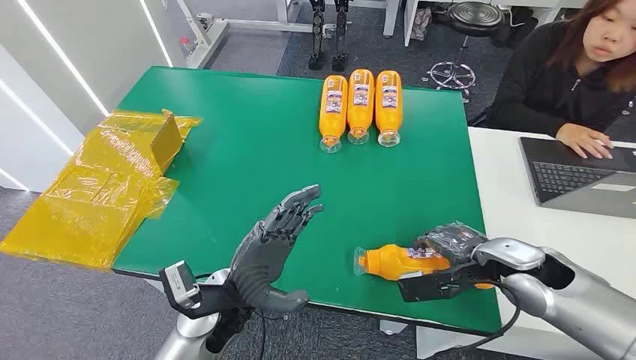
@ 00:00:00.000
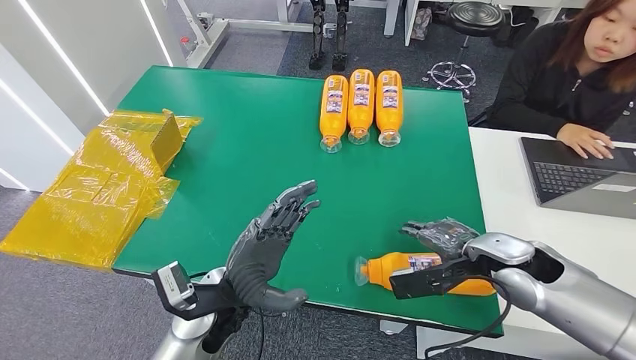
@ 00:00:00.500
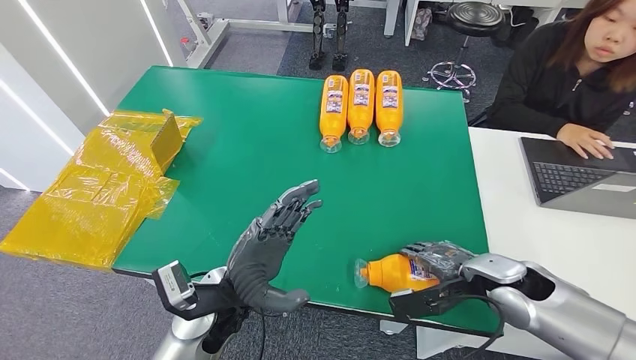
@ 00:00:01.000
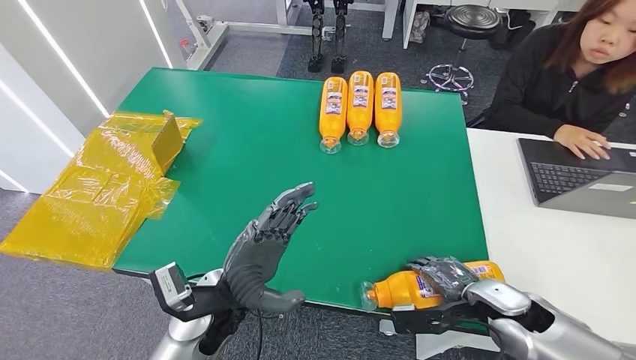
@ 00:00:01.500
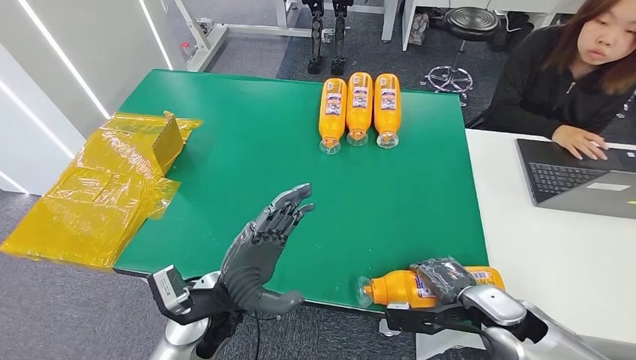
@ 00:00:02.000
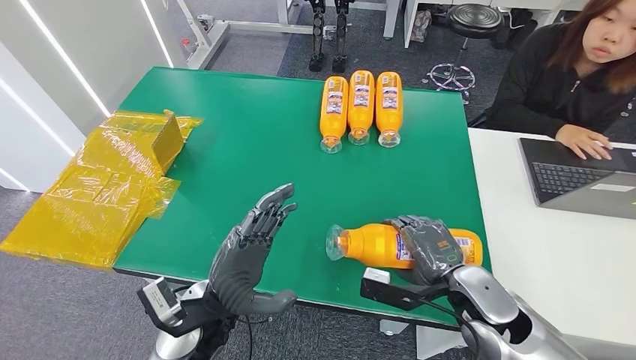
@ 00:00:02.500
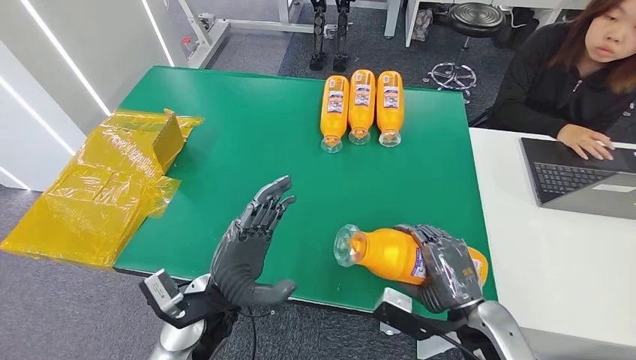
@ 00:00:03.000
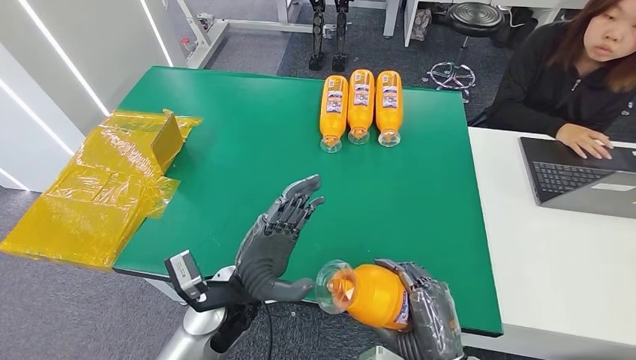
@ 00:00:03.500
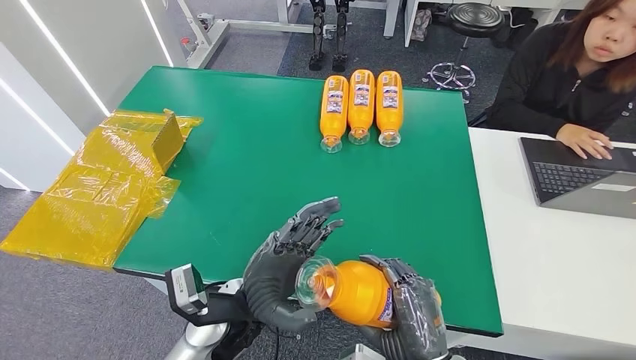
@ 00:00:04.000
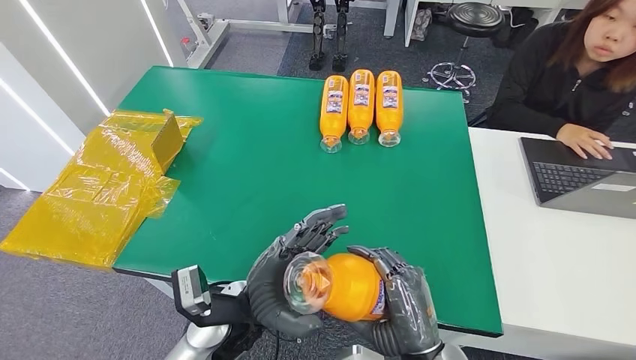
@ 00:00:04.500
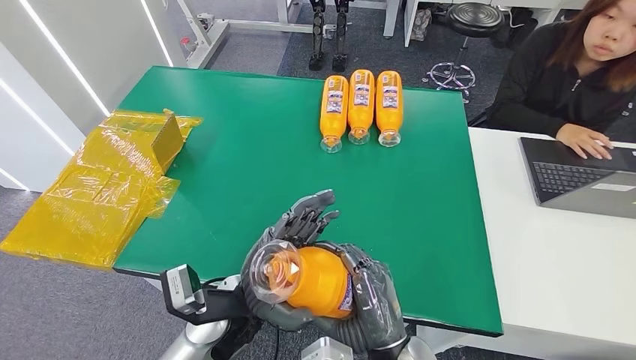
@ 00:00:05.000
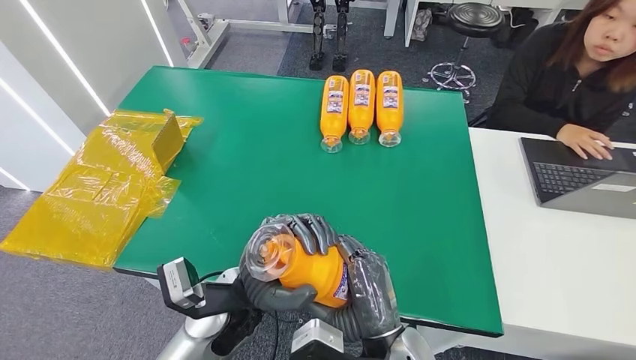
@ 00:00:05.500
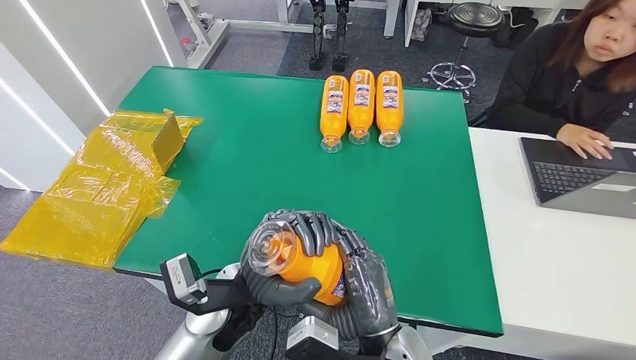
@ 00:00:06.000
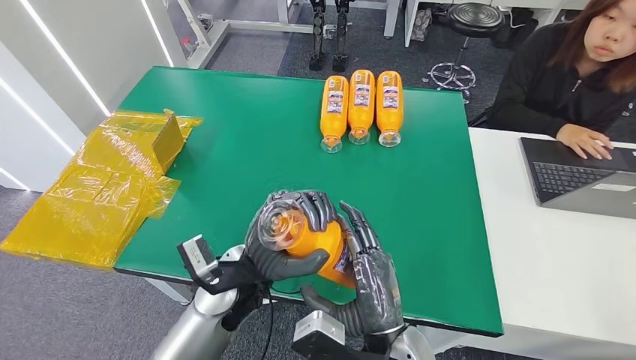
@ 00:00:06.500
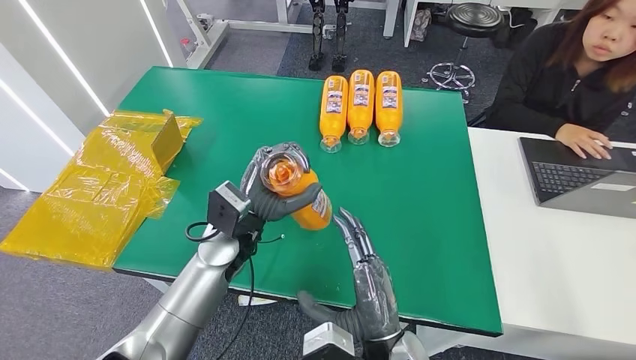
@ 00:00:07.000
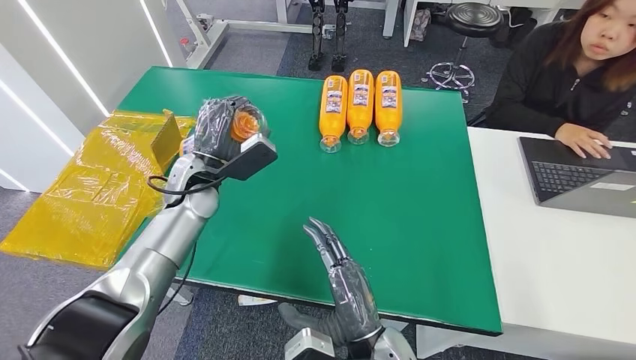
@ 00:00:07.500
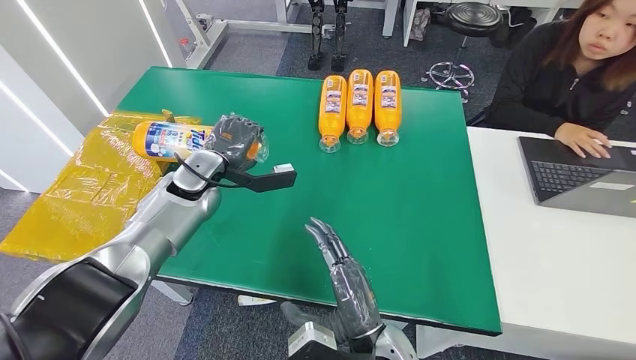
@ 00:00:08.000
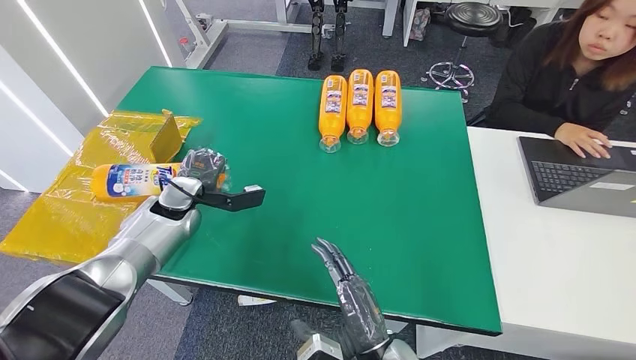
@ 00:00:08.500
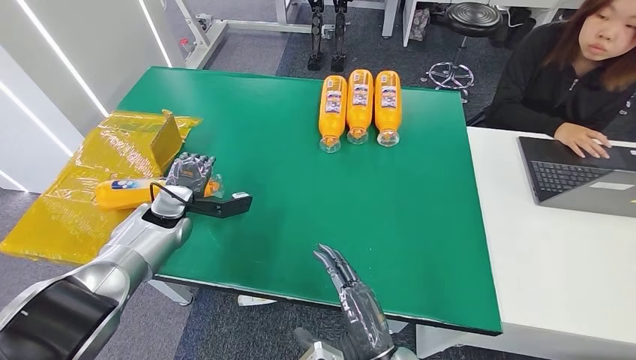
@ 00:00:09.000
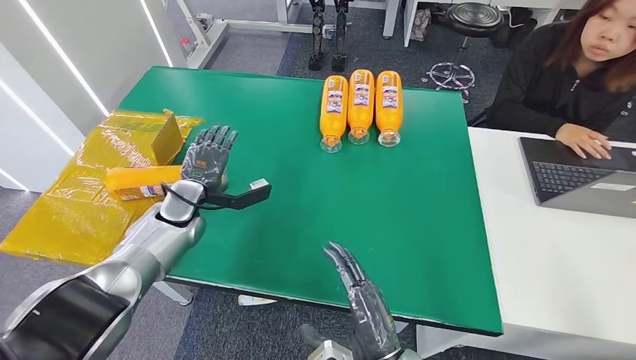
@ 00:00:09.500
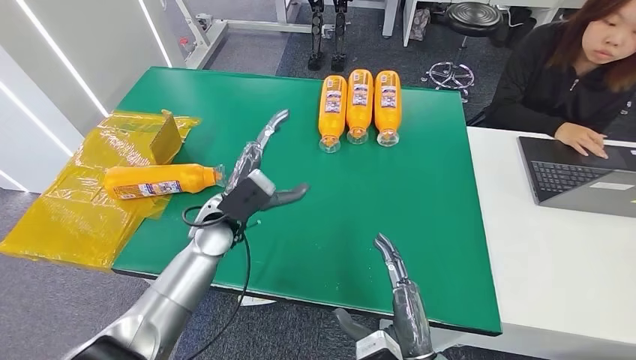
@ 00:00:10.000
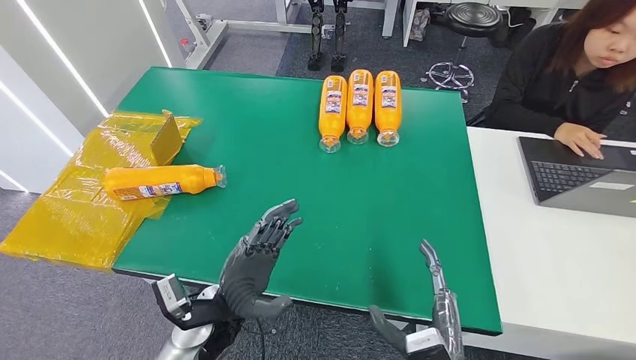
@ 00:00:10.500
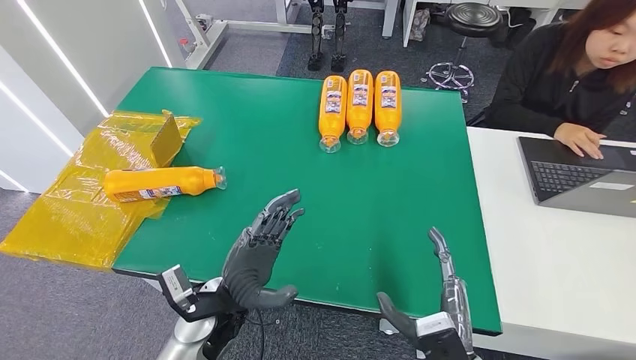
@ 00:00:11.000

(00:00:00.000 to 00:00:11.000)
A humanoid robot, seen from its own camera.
Step, 00:00:00.000 - 00:00:03.500: Pick up the bottle from the table.
Step, 00:00:04.000 - 00:00:11.000: Turn the bottle to the front side.
00:00:02.000 - 00:00:03.500: The right hand travels backward and to the left by approximately 15 cm.
00:00:03.500 - 00:00:05.500: The right hand is displaced to the left by approximately 10 cm.
00:00:05.500 - 00:00:07.500: The left hand goes roughly 20 cm forward and to the left.
00:00:07.500 - 00:00:09.000: The left hand shifts about 15 cm to the left and downward.
00:00:09.000 - 00:00:11.000: The right hand goes some 10 cm to the right, while the left hand travels to the right and backward by about 25 cm.

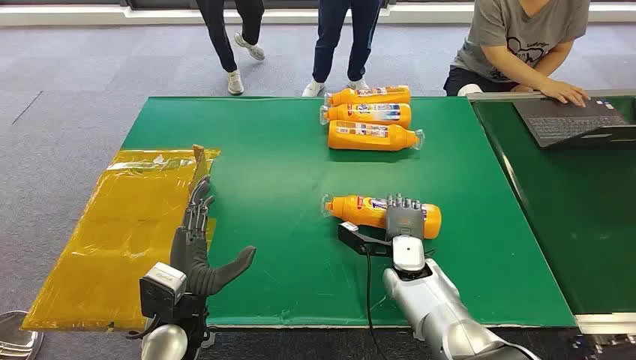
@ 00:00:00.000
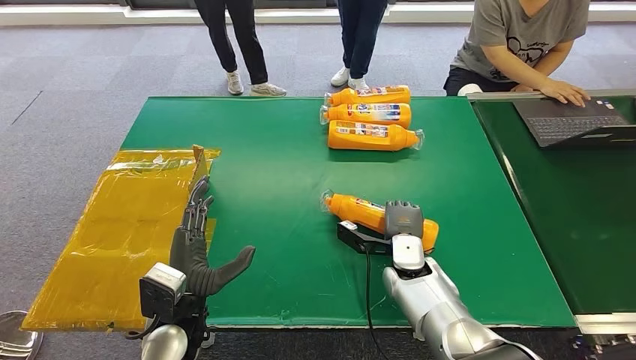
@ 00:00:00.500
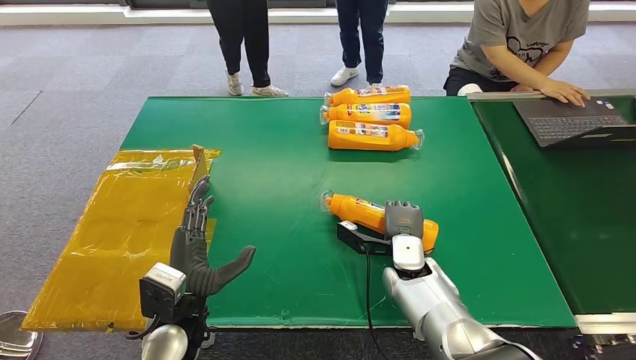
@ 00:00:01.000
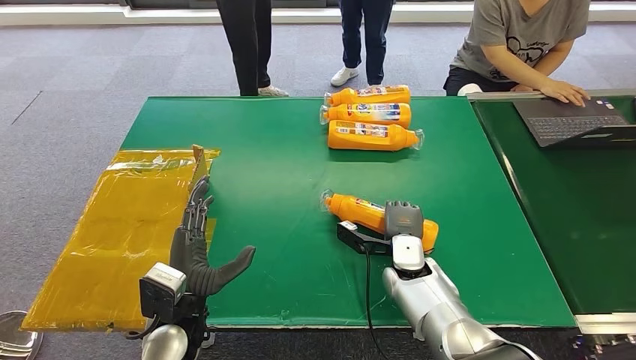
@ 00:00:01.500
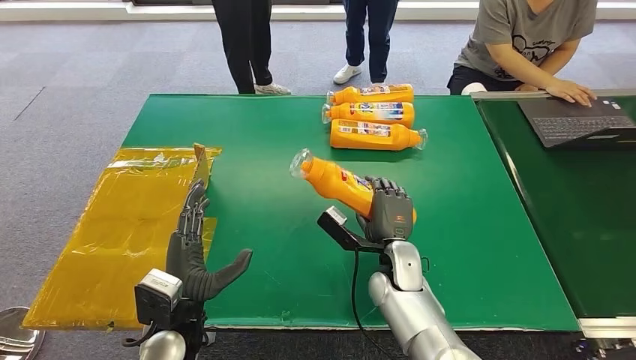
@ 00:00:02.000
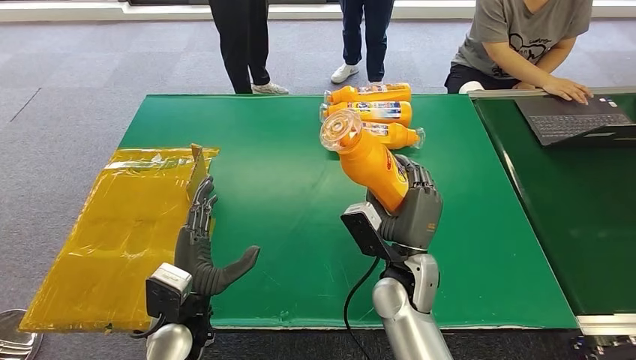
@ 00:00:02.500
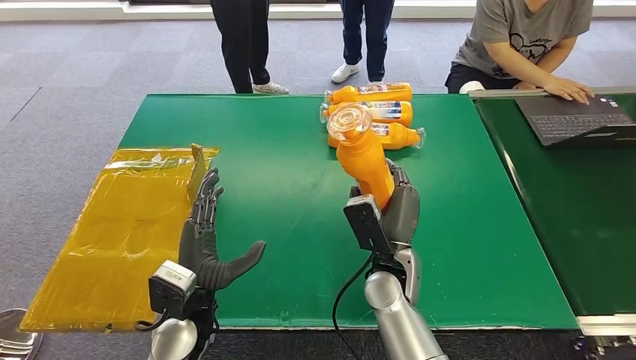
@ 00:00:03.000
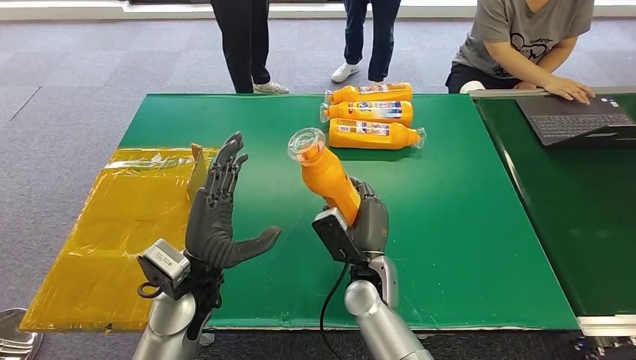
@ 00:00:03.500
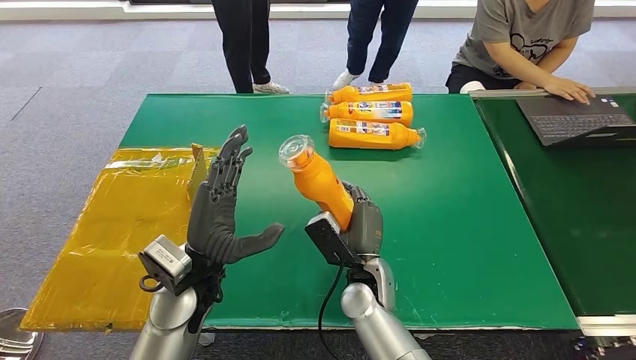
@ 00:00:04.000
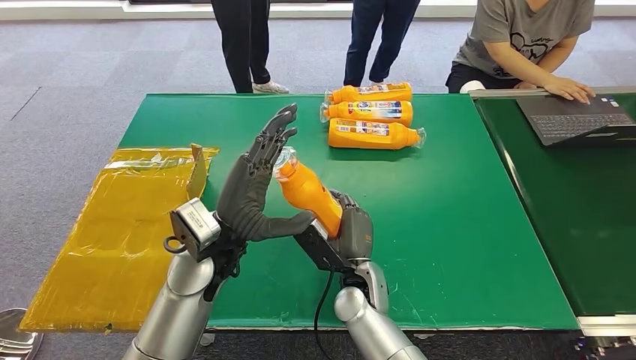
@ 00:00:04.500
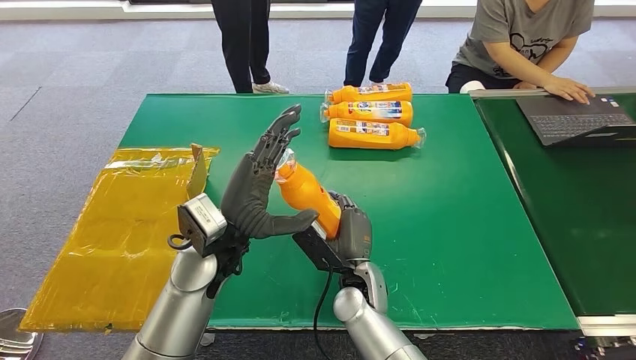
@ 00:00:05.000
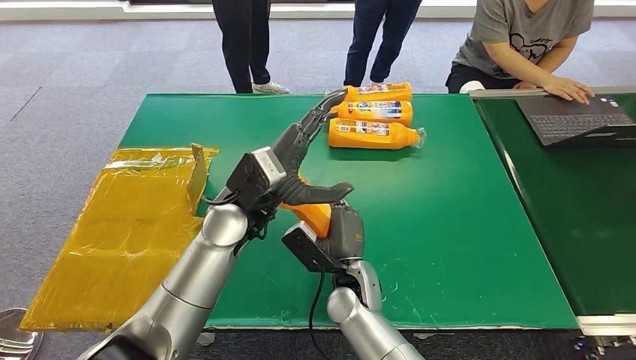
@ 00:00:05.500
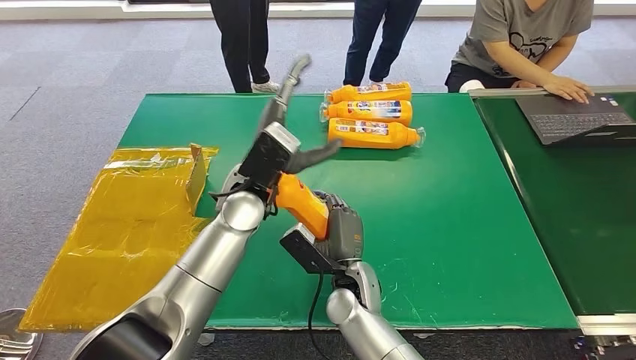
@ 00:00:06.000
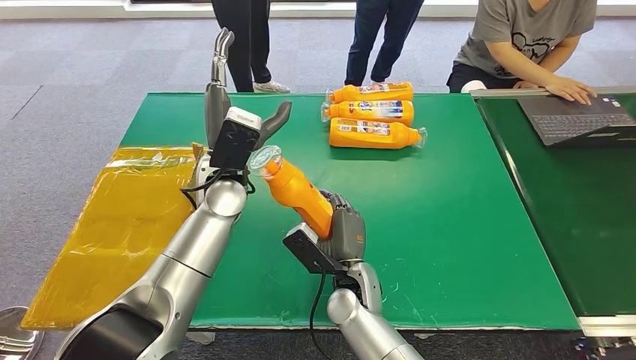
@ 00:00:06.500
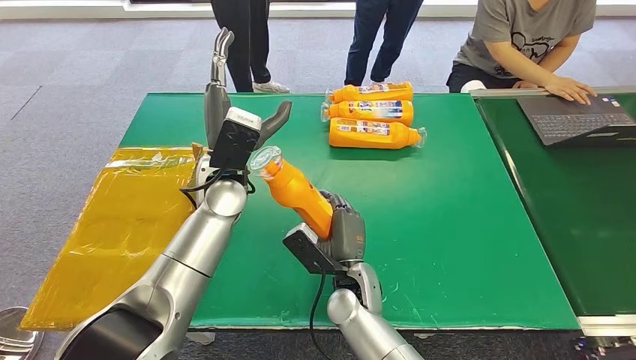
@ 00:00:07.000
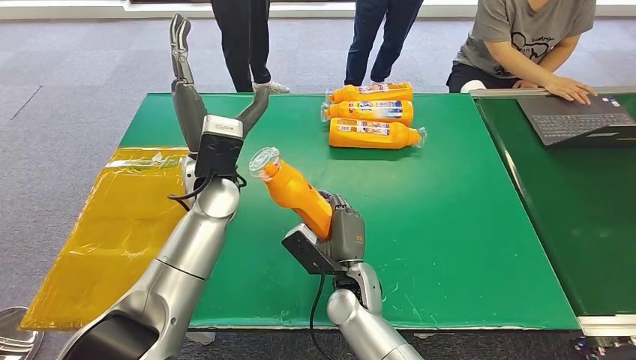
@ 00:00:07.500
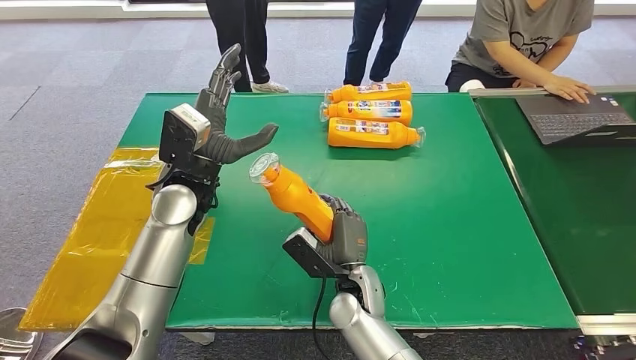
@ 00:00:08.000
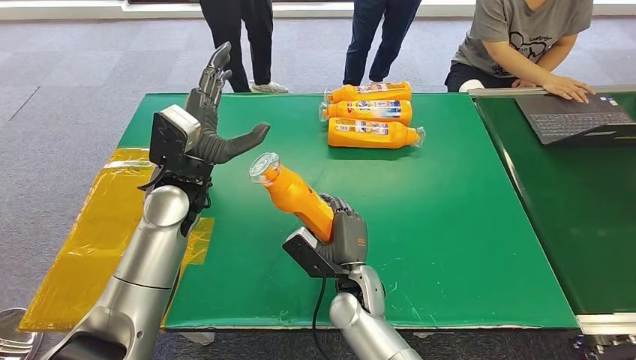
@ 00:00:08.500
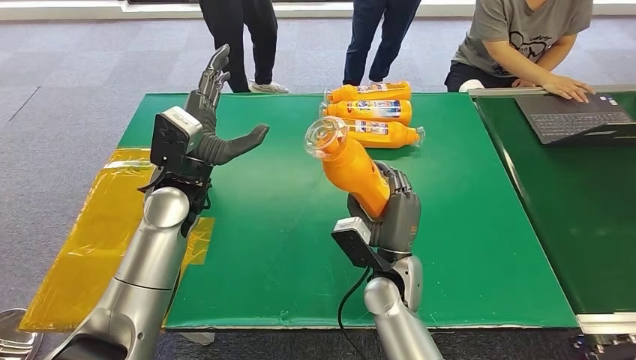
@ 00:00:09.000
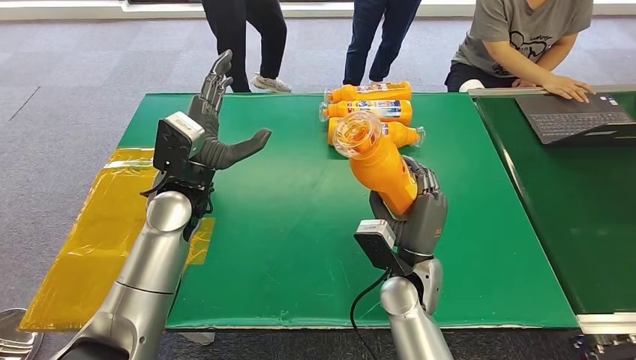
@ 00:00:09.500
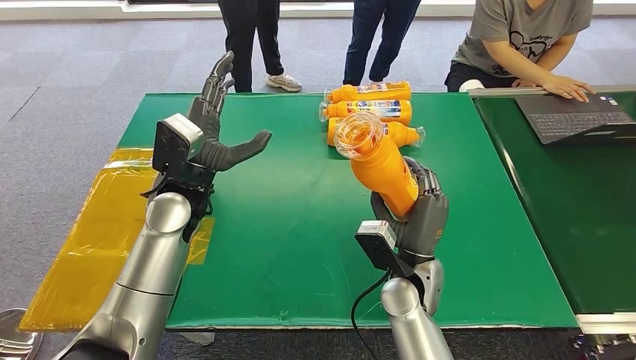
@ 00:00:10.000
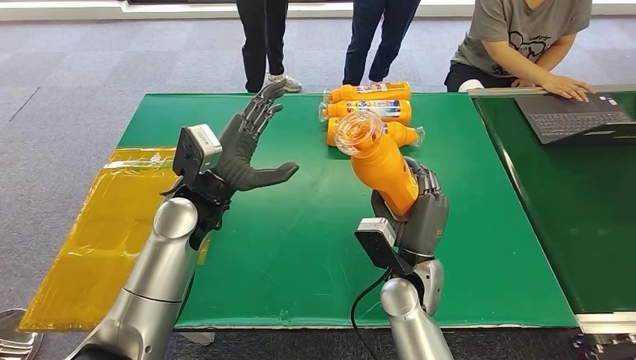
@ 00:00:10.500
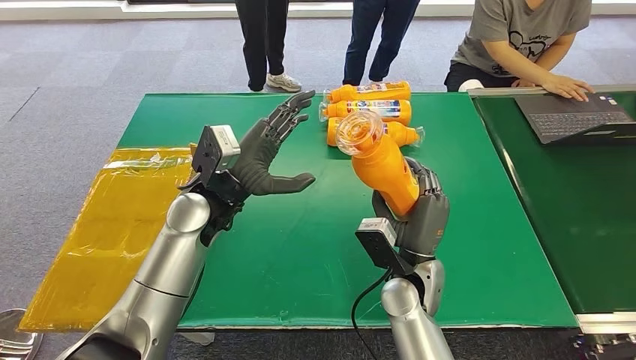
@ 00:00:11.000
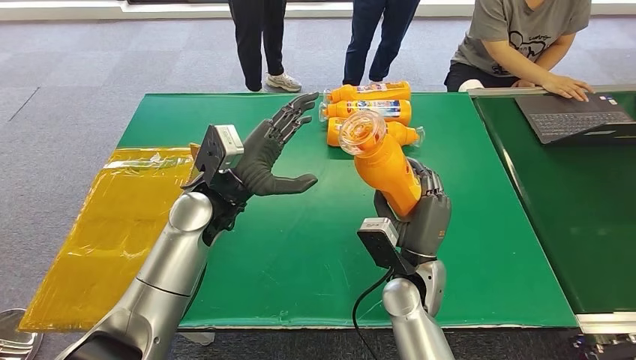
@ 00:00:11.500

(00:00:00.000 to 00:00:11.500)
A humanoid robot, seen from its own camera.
Step, 00:00:00.000 - 00:00:02.500: Pick up the bottle from the table.
00:00:02.000 - 00:00:04.000: The left hand is displaced upward and forward by approximately 10 cm. The right hand heads to the left, covering approximately 5 cm.
00:00:04.000 - 00:00:06.000: The left hand shifts some 15 cm forward and to the right.
